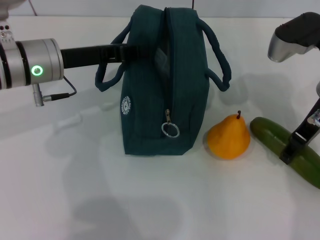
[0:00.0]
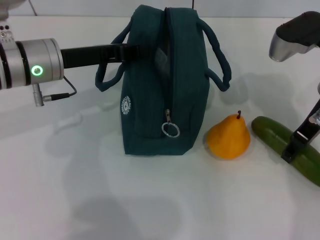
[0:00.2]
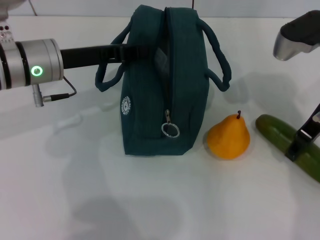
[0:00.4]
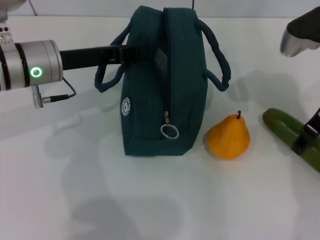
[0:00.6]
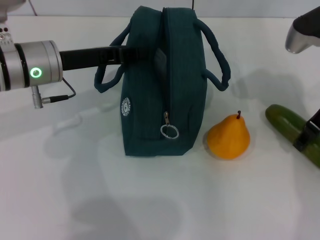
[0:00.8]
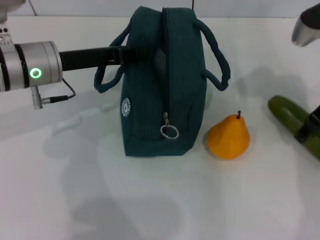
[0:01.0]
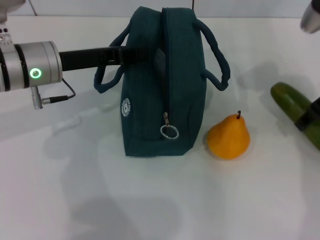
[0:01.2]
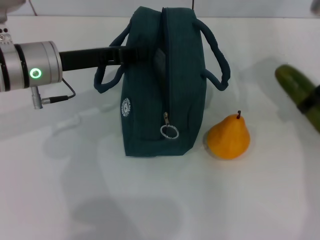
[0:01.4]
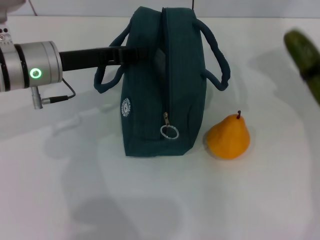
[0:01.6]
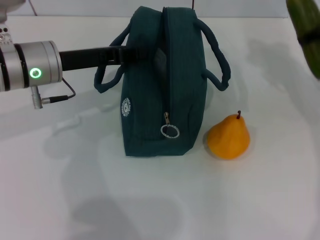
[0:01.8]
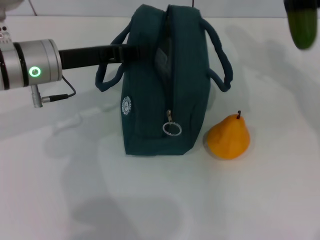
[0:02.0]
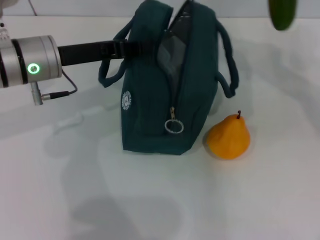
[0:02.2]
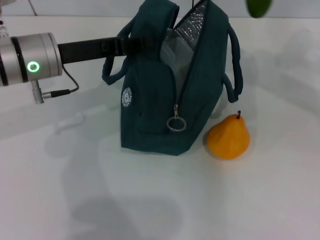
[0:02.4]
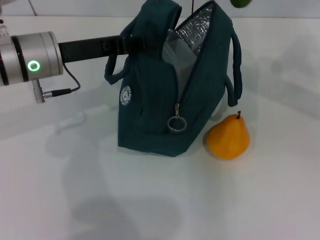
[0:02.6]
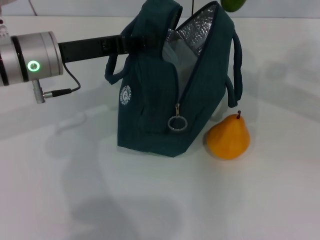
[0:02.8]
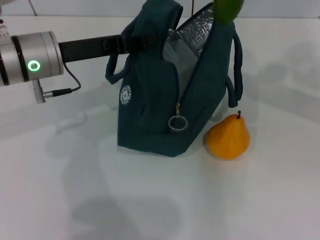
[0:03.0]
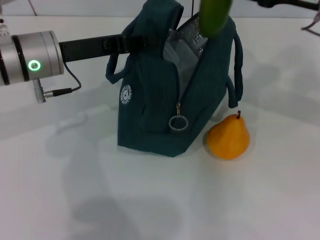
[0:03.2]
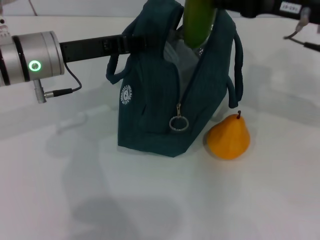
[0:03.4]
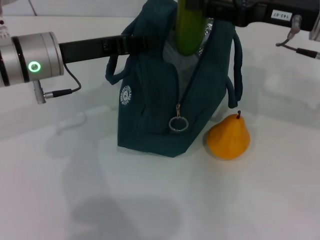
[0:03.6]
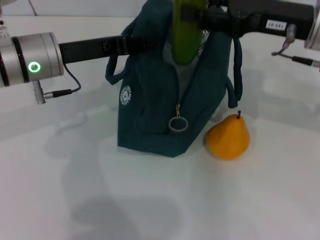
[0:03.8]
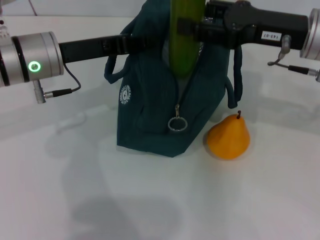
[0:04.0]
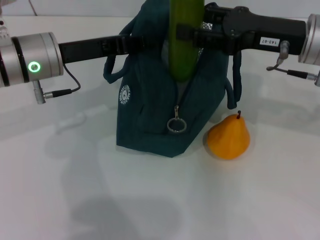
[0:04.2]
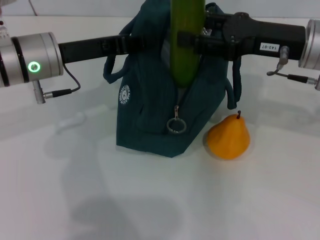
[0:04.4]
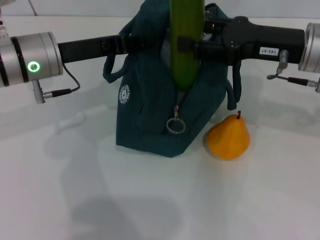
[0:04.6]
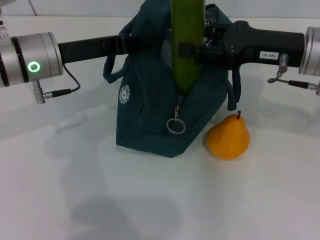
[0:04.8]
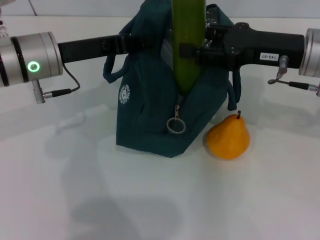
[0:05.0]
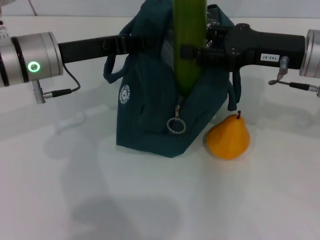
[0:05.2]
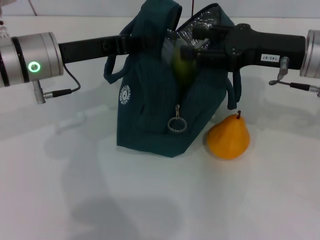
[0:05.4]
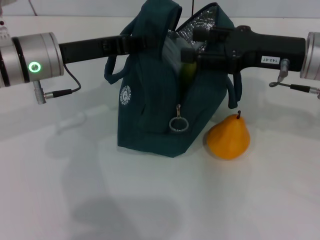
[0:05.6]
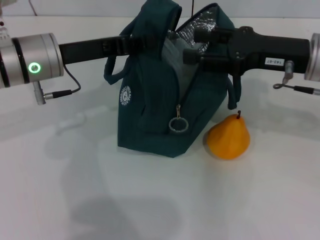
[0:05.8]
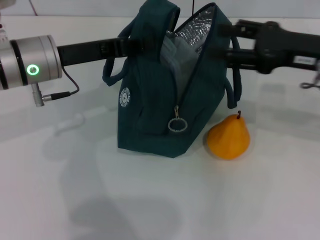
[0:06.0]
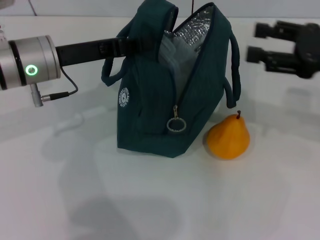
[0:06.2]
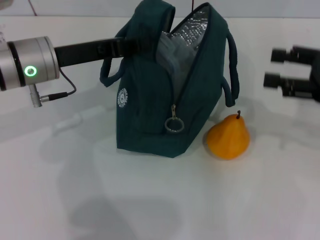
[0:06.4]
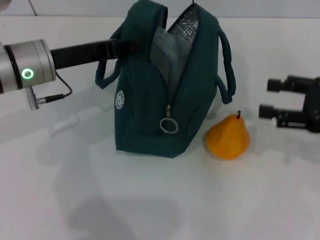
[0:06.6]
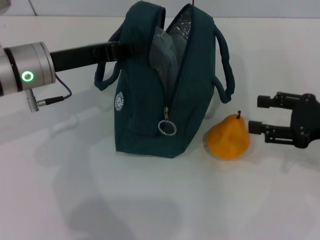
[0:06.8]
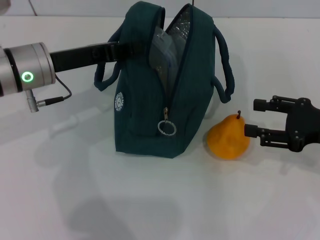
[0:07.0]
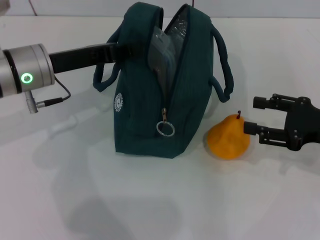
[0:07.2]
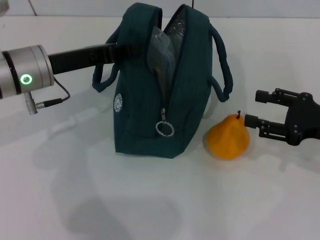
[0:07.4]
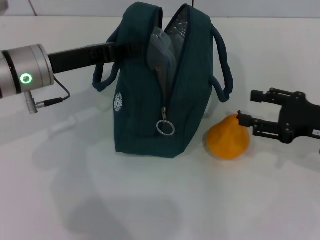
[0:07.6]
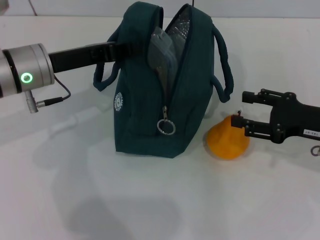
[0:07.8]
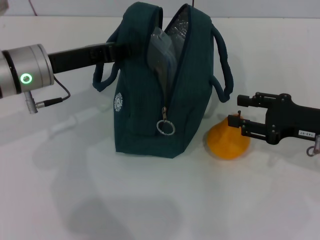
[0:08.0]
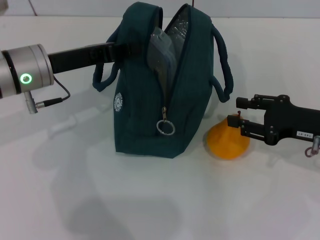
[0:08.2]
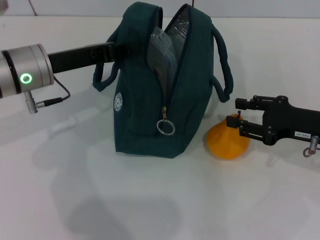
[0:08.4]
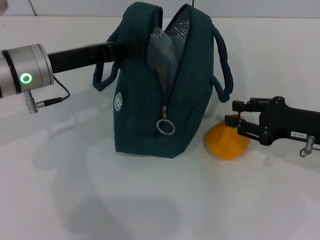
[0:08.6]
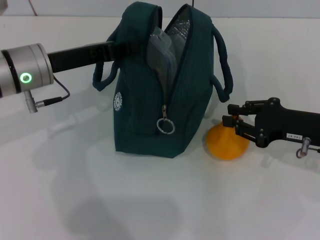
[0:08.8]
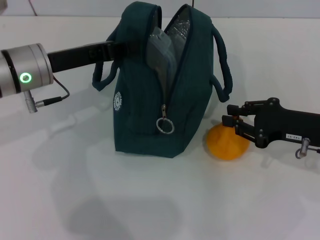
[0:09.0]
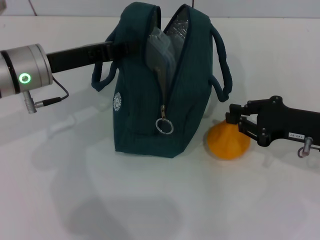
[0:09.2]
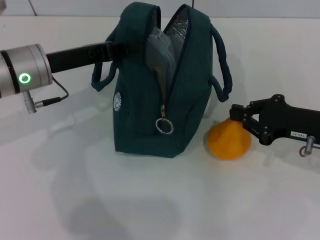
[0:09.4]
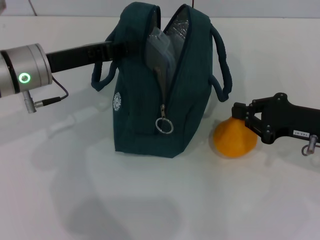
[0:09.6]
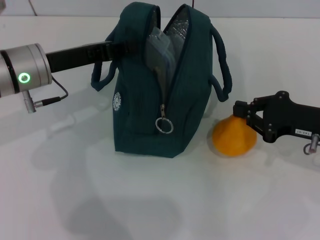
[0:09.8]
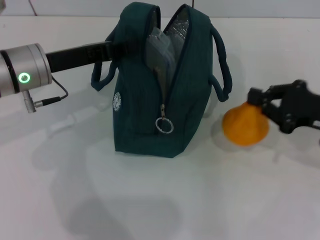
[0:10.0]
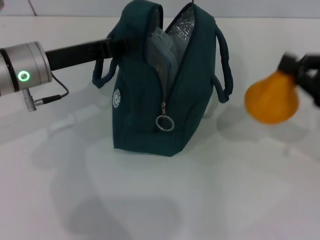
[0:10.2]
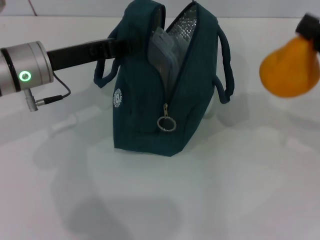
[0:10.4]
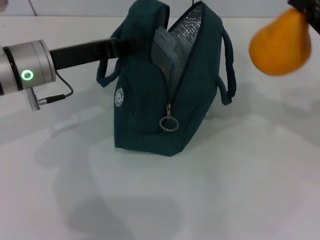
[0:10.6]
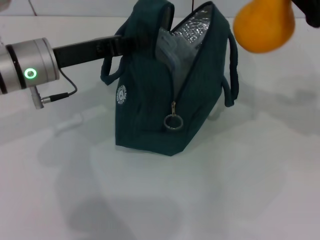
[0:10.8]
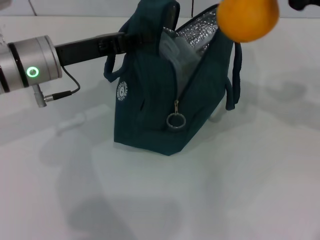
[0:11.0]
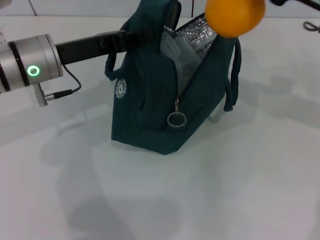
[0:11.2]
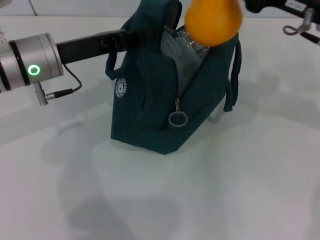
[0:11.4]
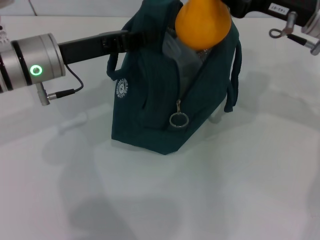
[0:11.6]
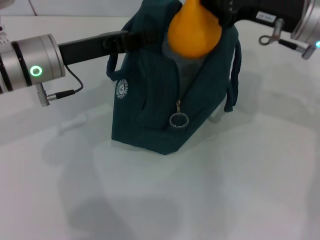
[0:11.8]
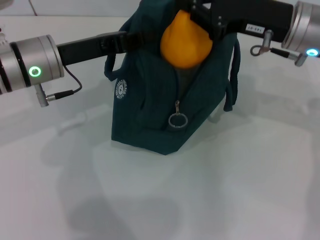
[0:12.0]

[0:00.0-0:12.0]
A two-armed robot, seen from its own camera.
Step, 0:00.0 to 0:05.8: Put the cucumber into the lunch bag with your right hand.
Step, 0:06.2 to 0:09.4: Grab the pear with your right hand.
0:00.0 to 0:01.6: The right gripper shifts approximately 10 cm to the right and upward.
0:01.6 to 0:03.0: The right gripper shifts by roughly 5 cm.
0:03.0 to 0:04.4: The right gripper travels downward by roughly 5 cm.
0:04.4 to 0:06.0: The grippers move only a little.
0:06.0 to 0:07.6: The right gripper moves downward and to the right, roughly 10 cm.
0:07.6 to 0:09.0: The right gripper closes.
0:09.0 to 0:10.4: The right gripper is displaced upward and to the right by some 10 cm.
0:10.4 to 0:12.0: The right gripper goes some 15 cm to the left and forward.

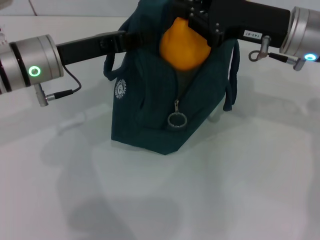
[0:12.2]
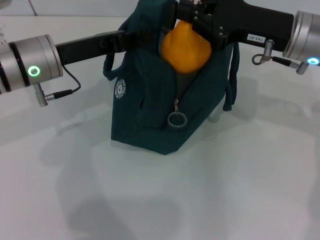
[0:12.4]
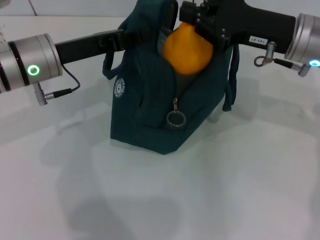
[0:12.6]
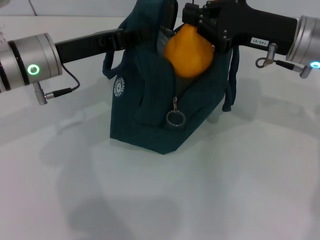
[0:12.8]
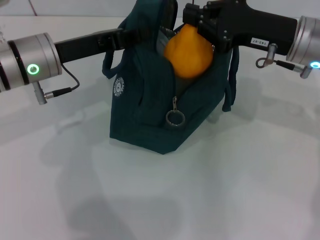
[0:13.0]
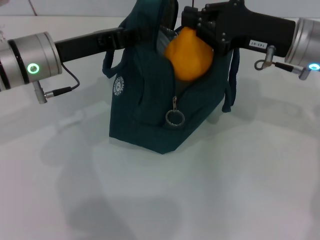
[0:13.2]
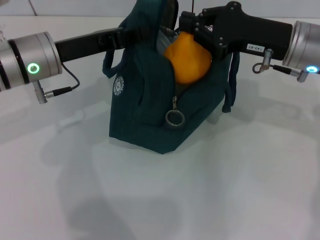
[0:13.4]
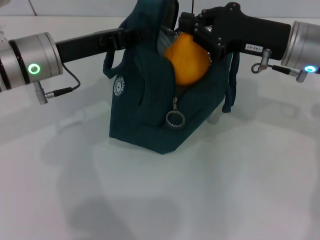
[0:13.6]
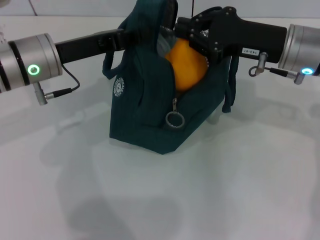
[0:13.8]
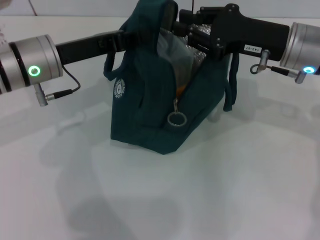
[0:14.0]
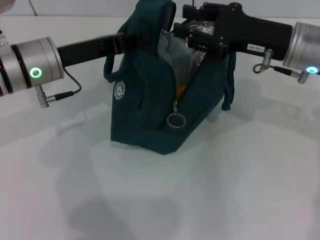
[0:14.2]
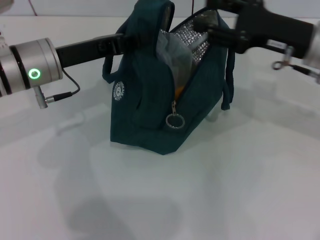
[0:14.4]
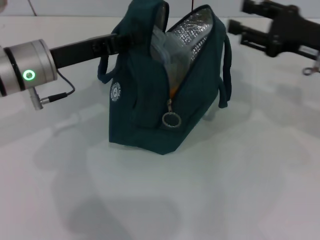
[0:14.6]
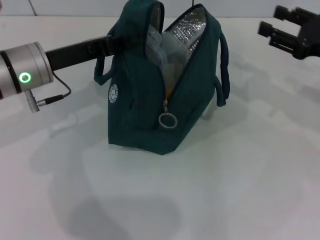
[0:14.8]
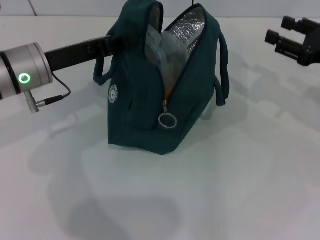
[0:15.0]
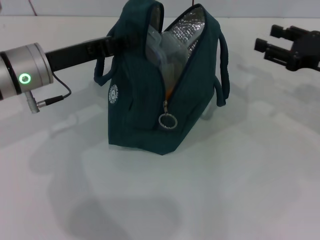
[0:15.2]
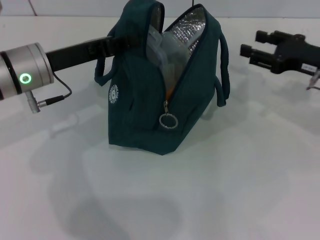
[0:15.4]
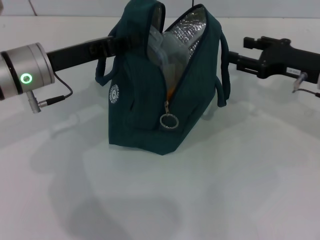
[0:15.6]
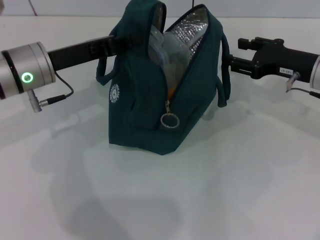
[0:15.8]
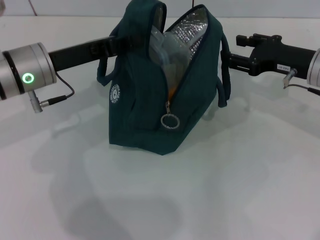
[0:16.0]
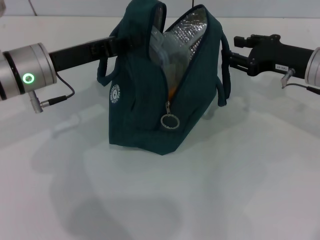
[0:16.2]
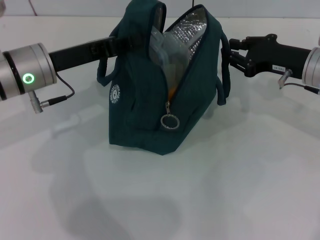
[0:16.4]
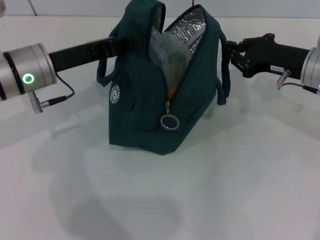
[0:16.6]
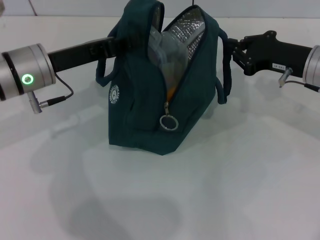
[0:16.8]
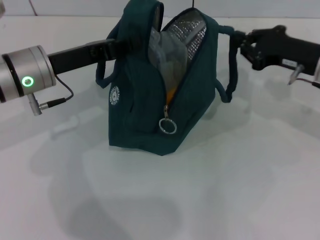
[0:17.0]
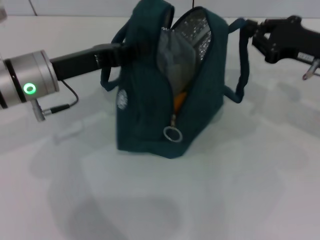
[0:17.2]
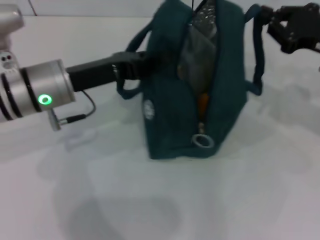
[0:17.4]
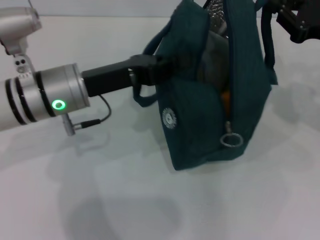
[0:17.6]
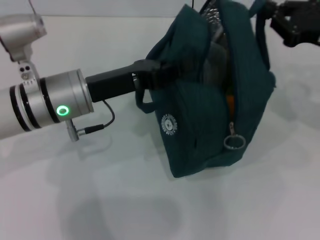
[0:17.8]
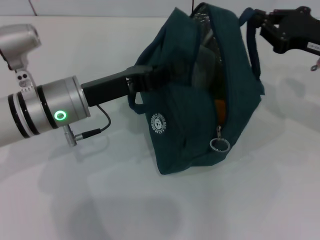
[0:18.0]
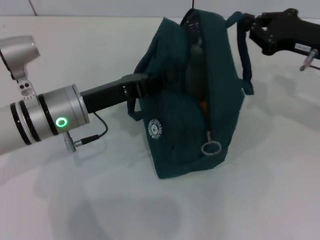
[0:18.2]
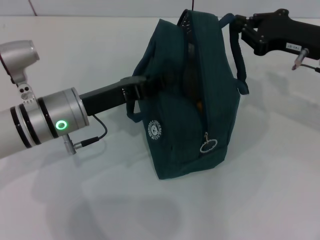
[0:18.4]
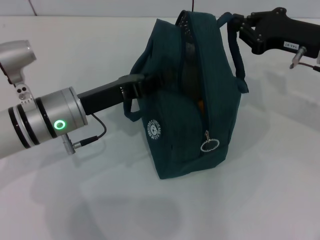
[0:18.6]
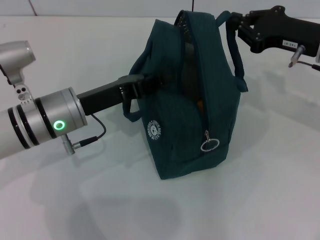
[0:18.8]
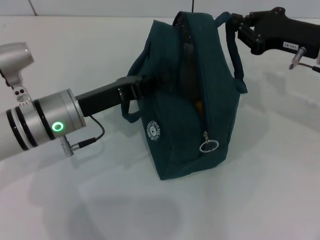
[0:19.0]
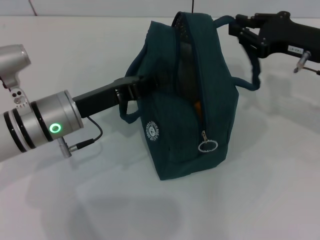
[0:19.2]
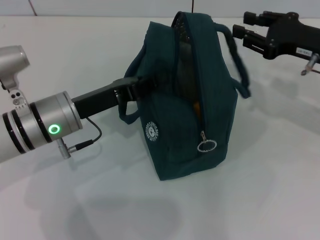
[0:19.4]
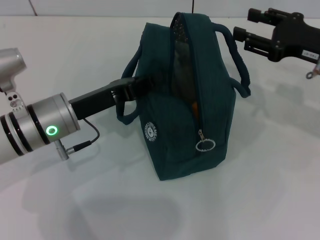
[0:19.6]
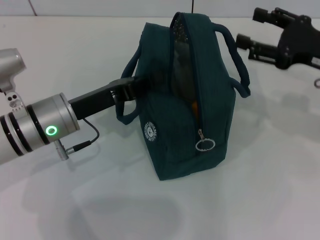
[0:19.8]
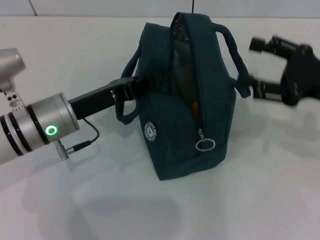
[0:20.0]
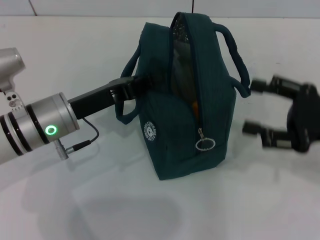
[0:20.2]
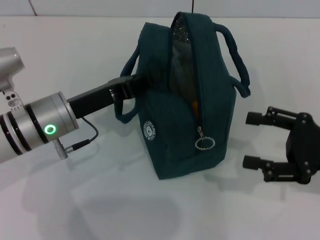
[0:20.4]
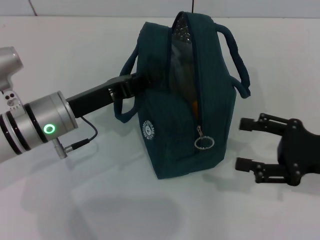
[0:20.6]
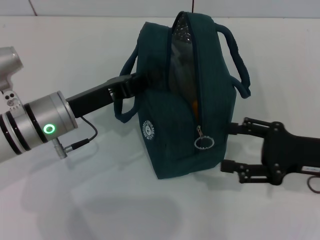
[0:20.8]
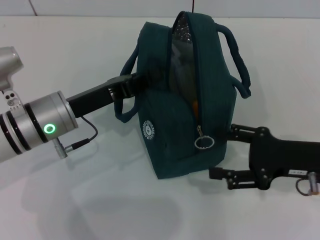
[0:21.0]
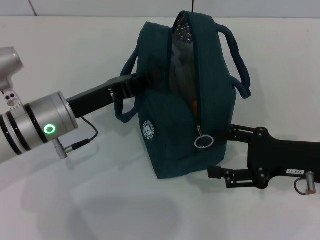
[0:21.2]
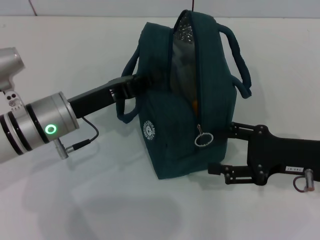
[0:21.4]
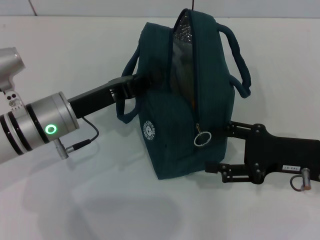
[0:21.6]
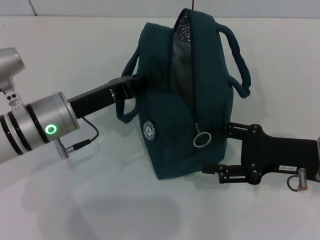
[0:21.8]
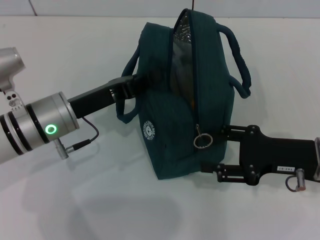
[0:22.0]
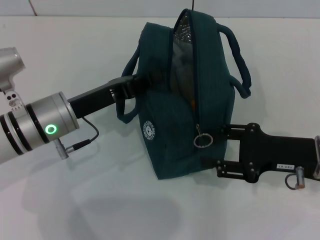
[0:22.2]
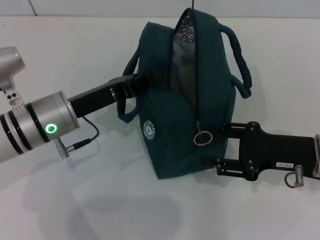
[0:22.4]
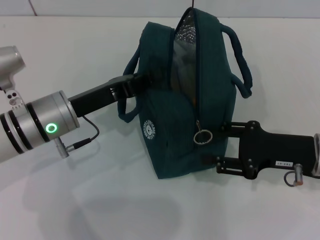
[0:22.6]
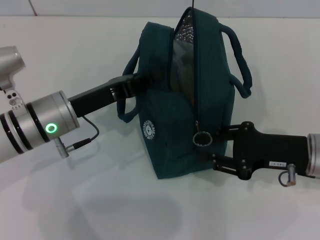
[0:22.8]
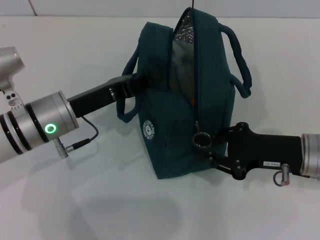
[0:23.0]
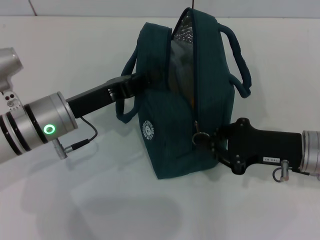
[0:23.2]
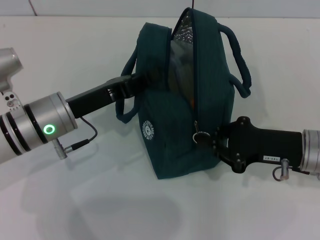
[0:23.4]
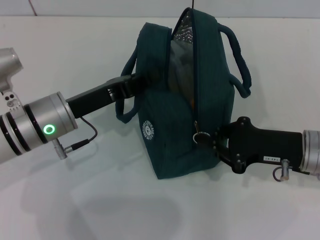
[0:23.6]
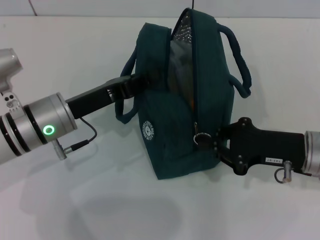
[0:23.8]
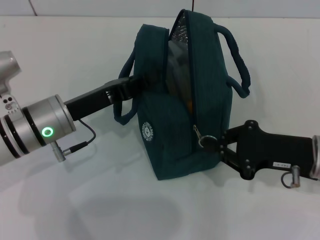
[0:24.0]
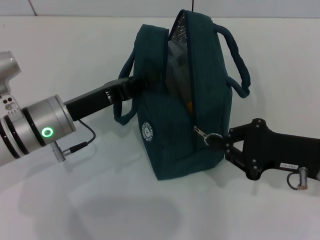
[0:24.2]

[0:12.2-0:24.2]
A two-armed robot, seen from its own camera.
Step, 0:14.0 to 0:19.2: Hold the lunch bag with your right hand.
0:12.2 to 0:13.8: The grippers stay close to where they were, moving slightly.
0:13.8 to 0:15.2: The right gripper is displaced to the right by some 10 cm, and opens its fingers.
0:15.2 to 0:16.6: The right gripper heads to the left, covering some 5 cm, and closes up.
0:16.6 to 0:18.2: The left gripper shifts by some 5 cm.
0:18.2 to 0:19.8: The right gripper opens up.
0:19.8 to 0:21.2: The right gripper is displaced backward and downward by about 10 cm.
0:21.2 to 0:22.6: Both grippers stay put.
0:22.6 to 0:24.2: The right gripper closes up.
